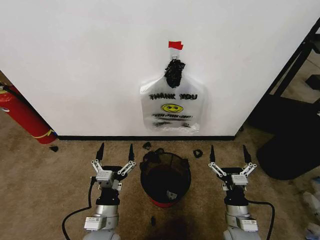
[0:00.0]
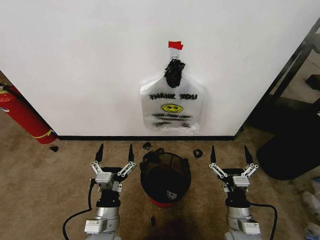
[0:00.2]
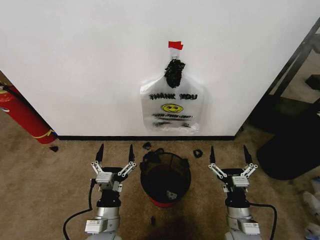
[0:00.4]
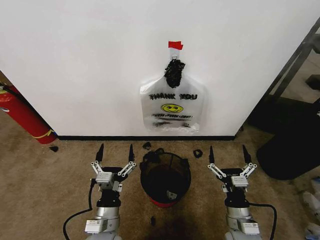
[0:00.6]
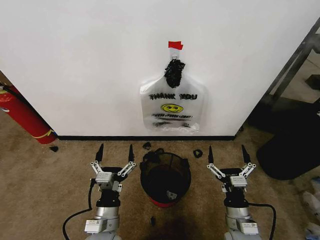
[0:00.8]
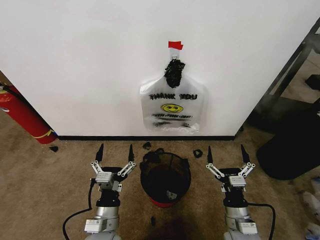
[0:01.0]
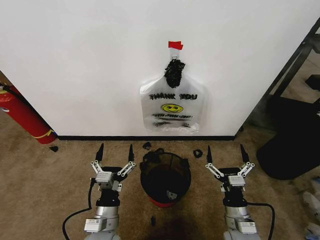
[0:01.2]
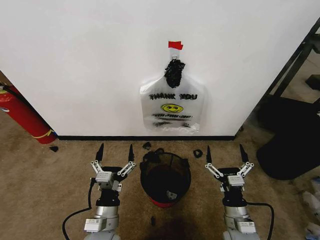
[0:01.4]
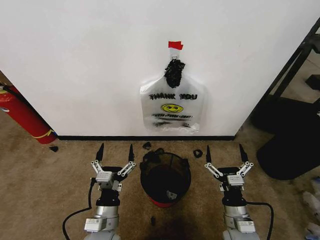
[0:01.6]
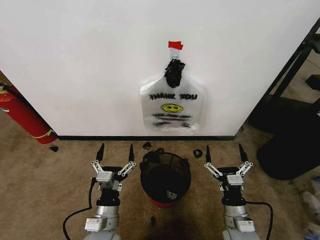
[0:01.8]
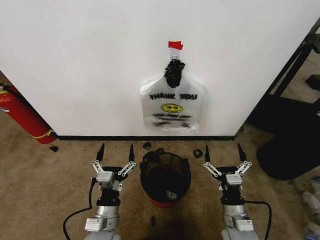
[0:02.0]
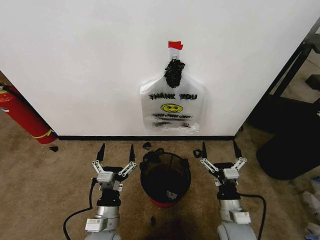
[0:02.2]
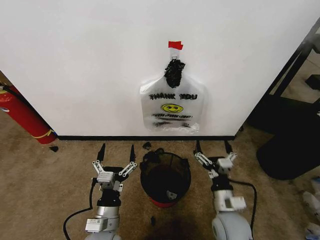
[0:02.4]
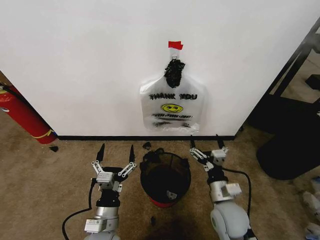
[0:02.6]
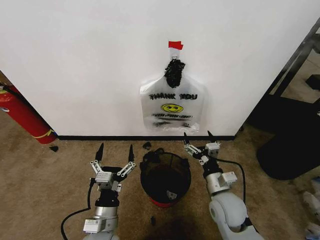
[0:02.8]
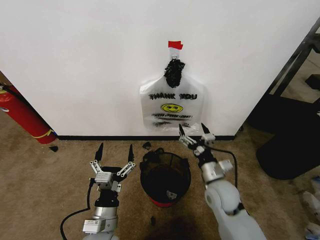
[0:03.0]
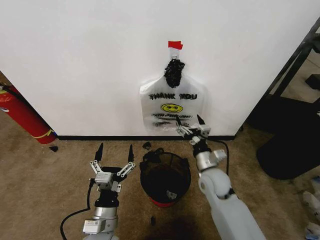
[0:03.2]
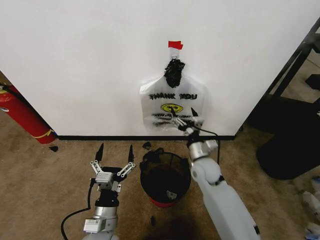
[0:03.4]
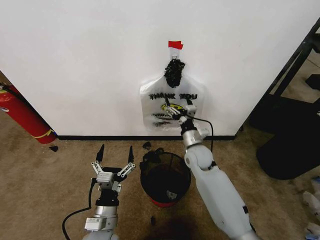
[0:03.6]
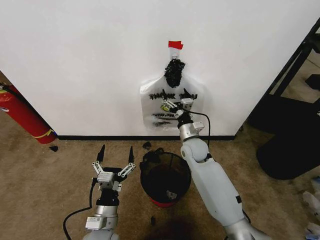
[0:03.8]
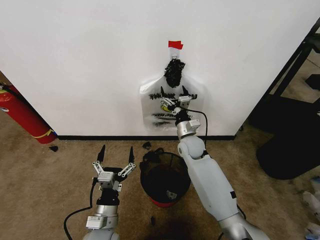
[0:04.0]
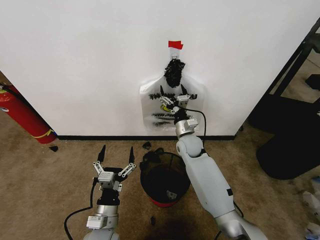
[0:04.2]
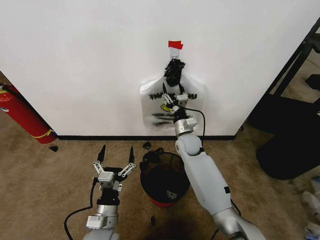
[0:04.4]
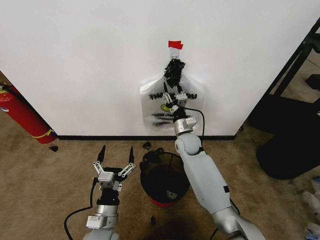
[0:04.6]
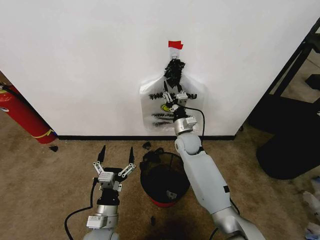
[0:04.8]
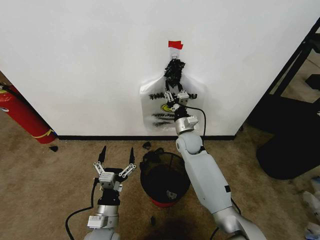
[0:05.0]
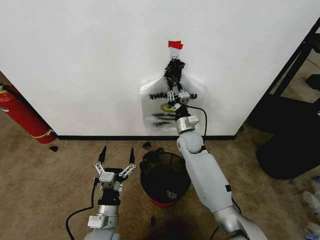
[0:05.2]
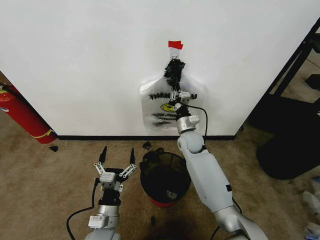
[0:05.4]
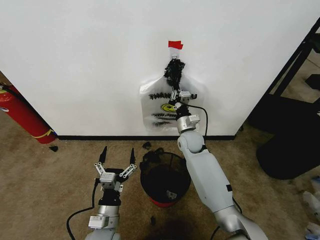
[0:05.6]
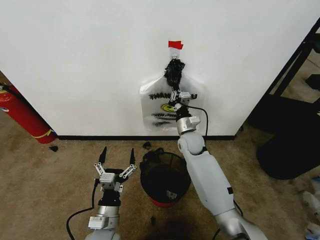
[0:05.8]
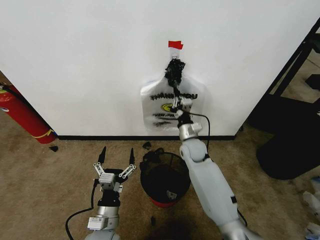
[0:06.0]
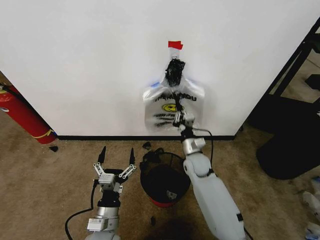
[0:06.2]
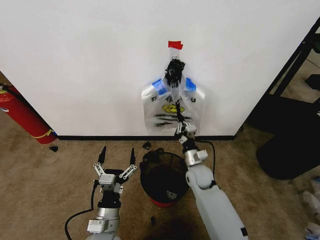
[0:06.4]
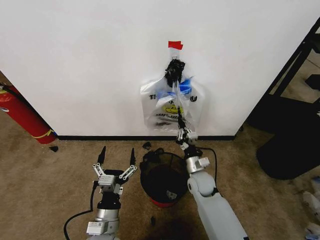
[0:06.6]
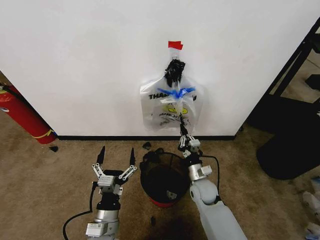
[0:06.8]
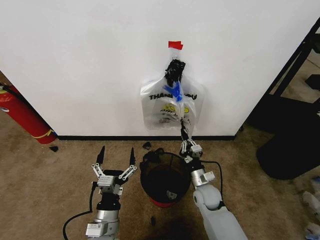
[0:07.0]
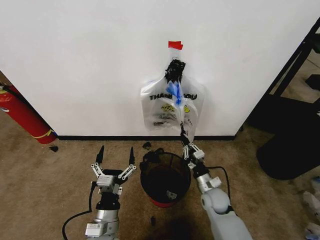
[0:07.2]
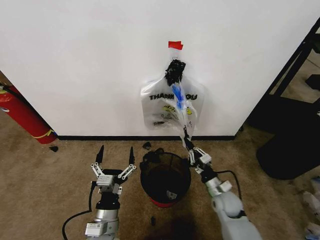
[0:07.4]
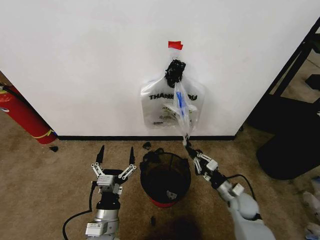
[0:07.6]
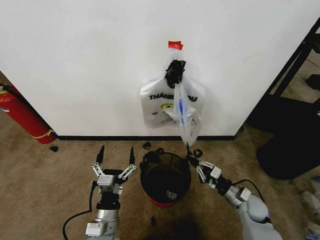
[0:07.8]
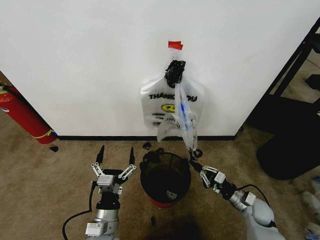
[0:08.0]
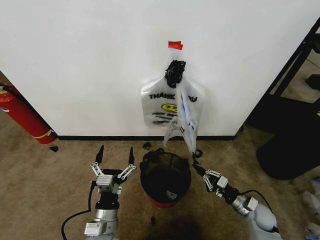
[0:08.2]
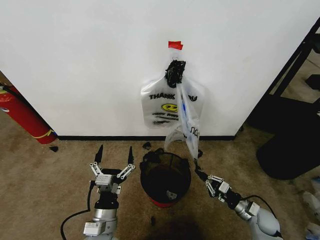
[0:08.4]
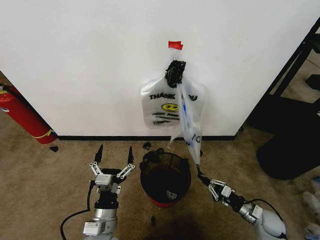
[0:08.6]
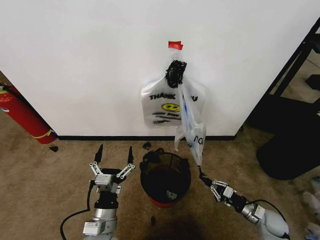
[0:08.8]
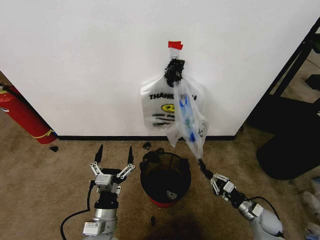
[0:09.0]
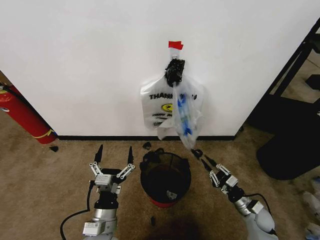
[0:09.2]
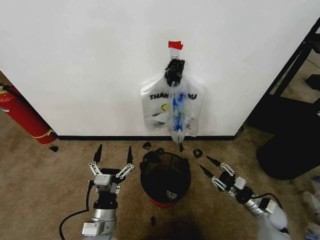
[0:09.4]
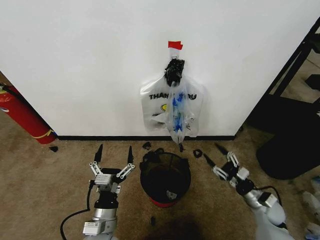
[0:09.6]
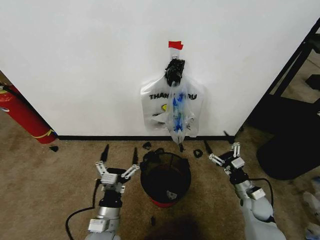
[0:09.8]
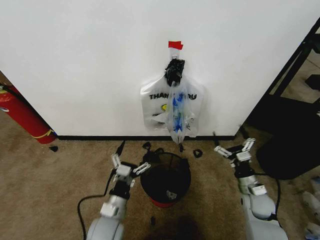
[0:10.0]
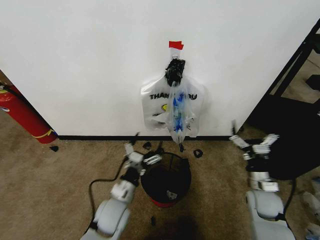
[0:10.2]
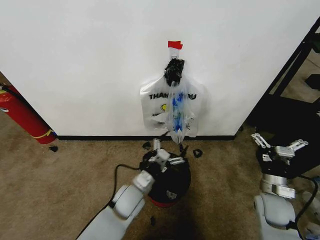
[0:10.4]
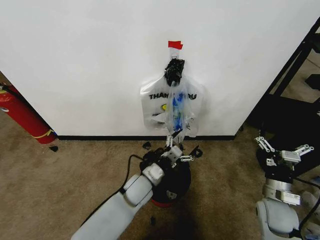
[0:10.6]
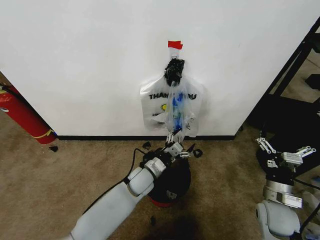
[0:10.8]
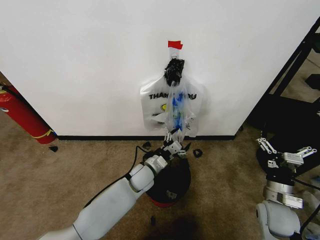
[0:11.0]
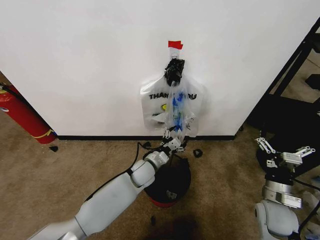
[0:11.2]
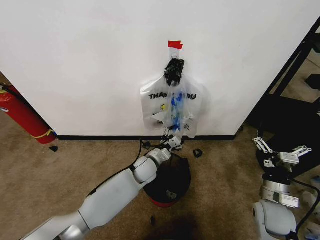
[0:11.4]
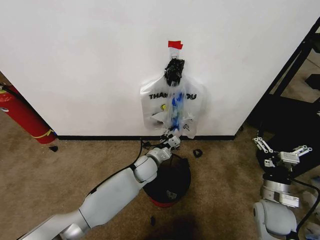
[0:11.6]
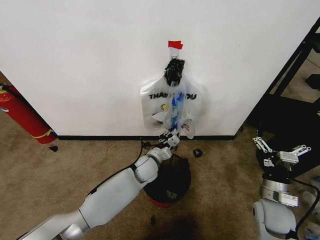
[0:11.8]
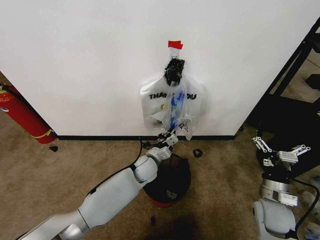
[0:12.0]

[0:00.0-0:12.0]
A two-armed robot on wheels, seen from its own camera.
Task of the whole recording: Pick up the garbage bag from the wall and place it over the trash bin.
0:01.6 to 0:03.0: The right gripper shifts roughly 10 cm forward and upward.
0:03.0 to 0:04.4: The right gripper shifts some 25 cm forward.
0:04.4 to 0:06.0: The right gripper closes its fingers.
0:06.0 to 0:07.6: The right gripper shifts some 25 cm to the right, backward and downward.
0:07.6 to 0:09.0: The right gripper heads to the right and downward, covering some 10 cm.
0:09.0 to 0:10.4: The right gripper goes about 15 cm upward, and opens up. Meanwhile the left gripper shifts some 15 cm forward and to the right.
0:10.4 to 0:12.0: The left gripper goes about 10 cm forward, and closes up.

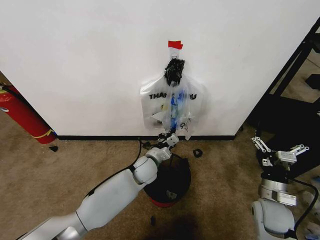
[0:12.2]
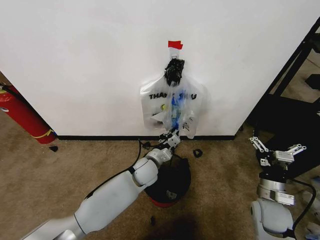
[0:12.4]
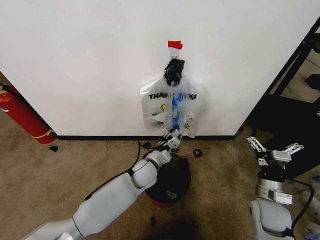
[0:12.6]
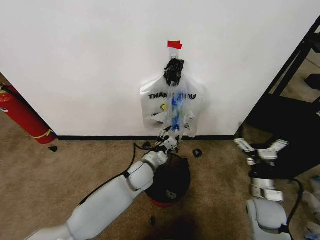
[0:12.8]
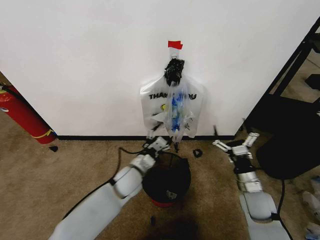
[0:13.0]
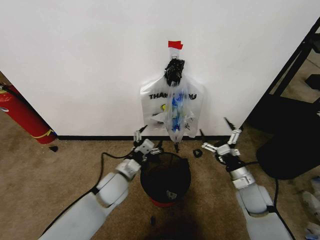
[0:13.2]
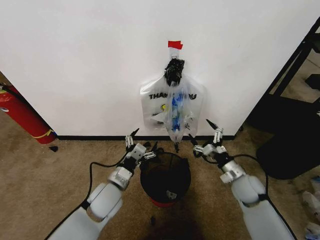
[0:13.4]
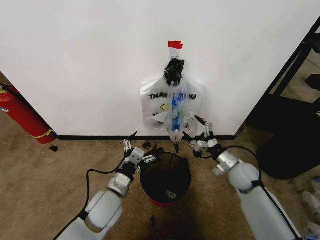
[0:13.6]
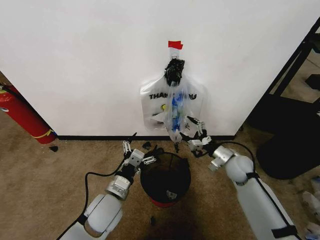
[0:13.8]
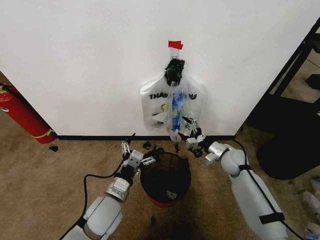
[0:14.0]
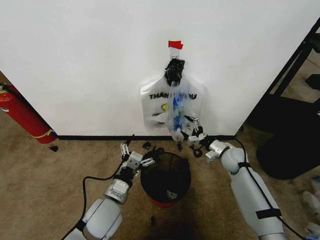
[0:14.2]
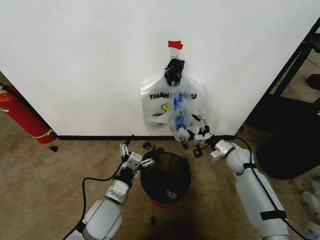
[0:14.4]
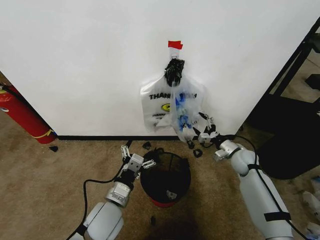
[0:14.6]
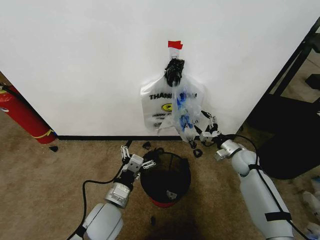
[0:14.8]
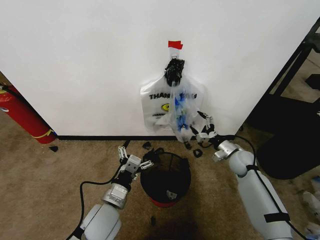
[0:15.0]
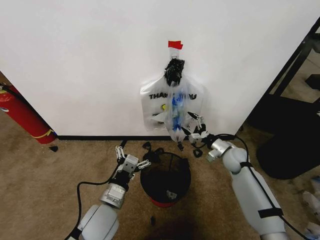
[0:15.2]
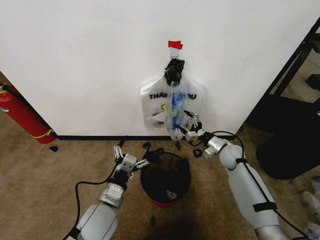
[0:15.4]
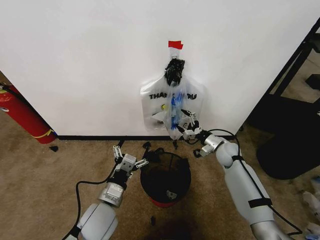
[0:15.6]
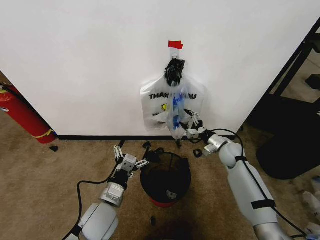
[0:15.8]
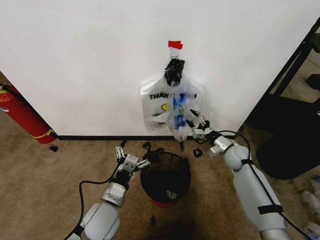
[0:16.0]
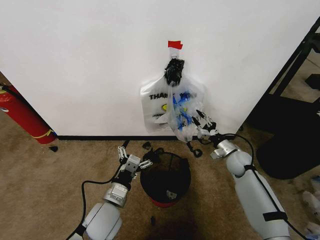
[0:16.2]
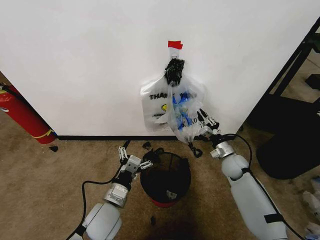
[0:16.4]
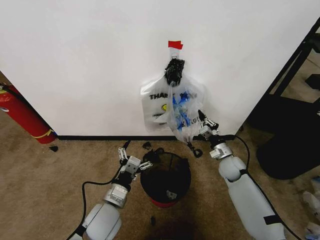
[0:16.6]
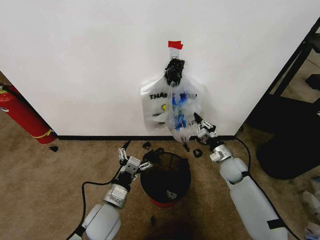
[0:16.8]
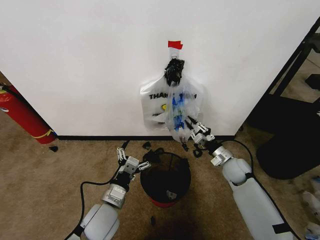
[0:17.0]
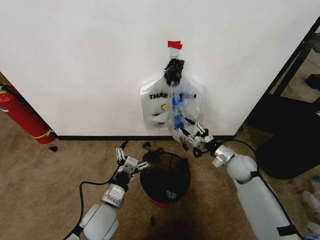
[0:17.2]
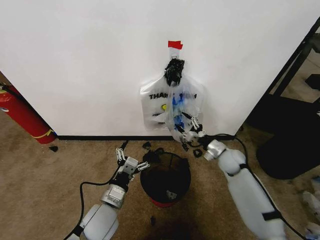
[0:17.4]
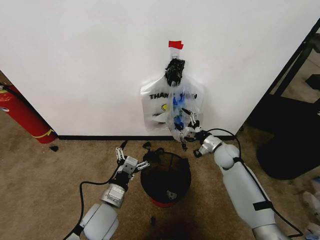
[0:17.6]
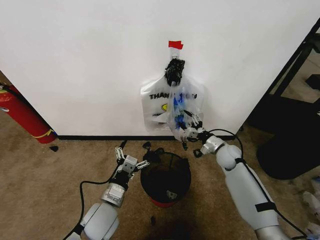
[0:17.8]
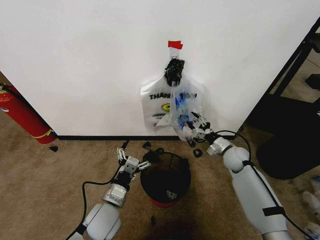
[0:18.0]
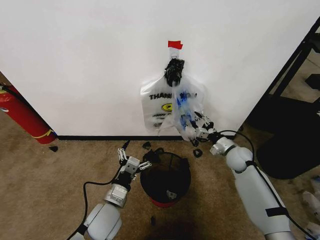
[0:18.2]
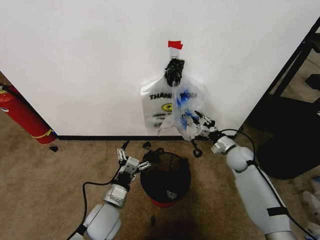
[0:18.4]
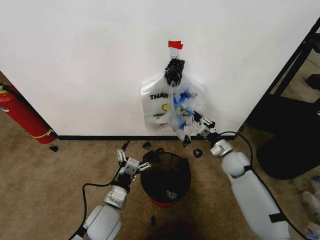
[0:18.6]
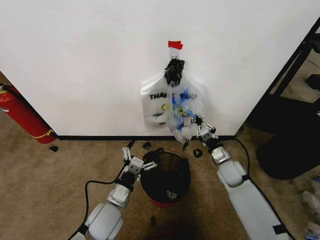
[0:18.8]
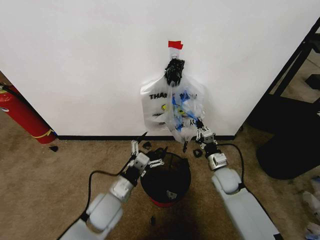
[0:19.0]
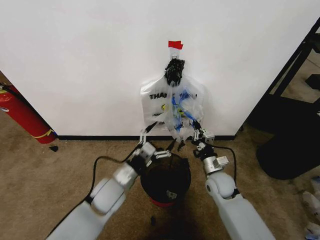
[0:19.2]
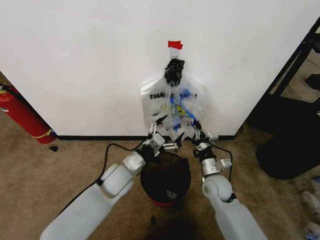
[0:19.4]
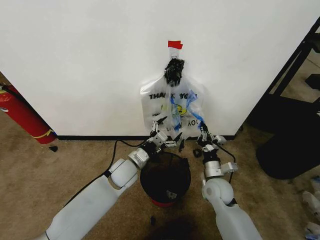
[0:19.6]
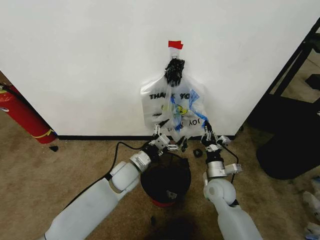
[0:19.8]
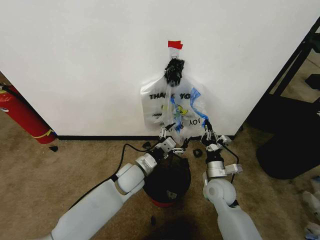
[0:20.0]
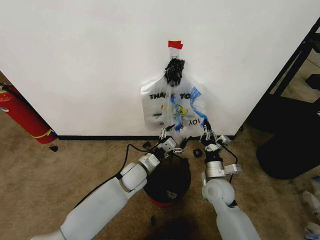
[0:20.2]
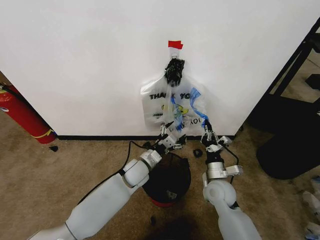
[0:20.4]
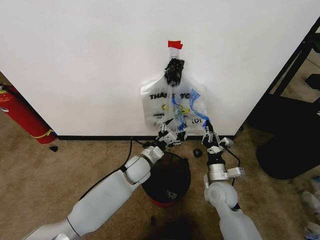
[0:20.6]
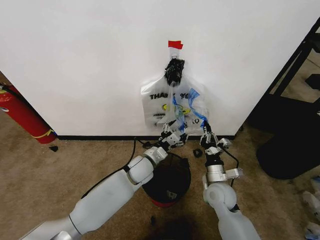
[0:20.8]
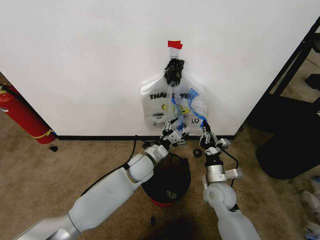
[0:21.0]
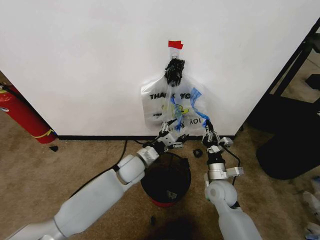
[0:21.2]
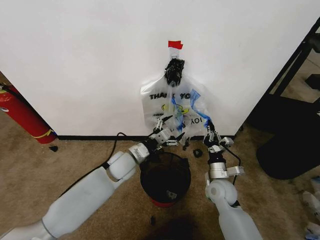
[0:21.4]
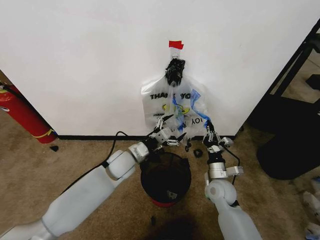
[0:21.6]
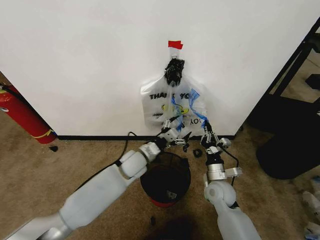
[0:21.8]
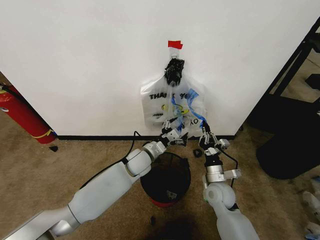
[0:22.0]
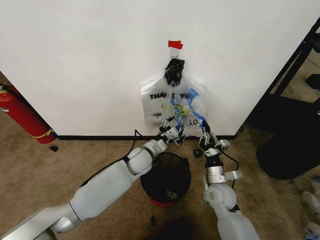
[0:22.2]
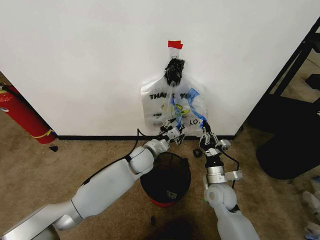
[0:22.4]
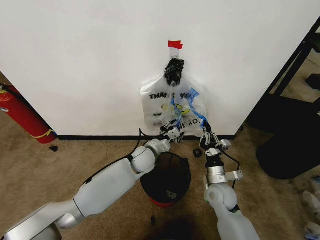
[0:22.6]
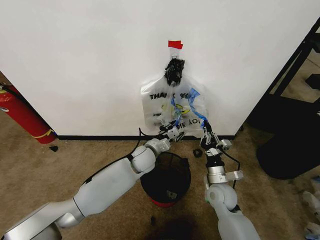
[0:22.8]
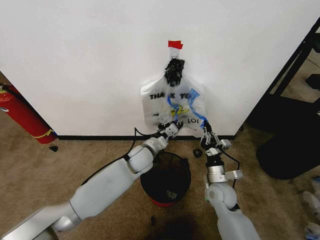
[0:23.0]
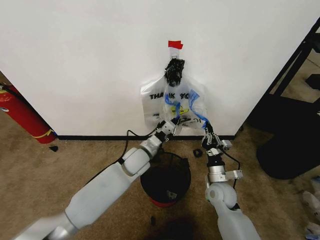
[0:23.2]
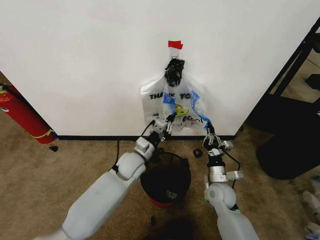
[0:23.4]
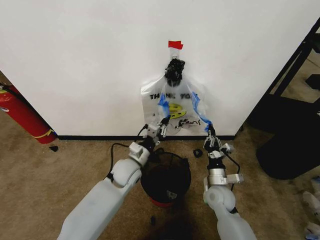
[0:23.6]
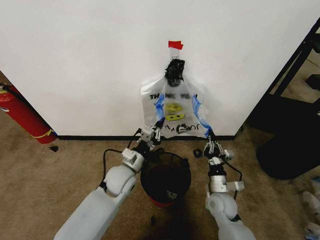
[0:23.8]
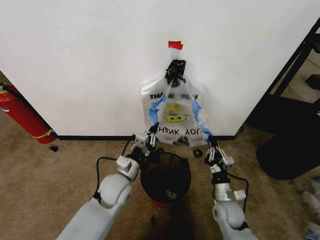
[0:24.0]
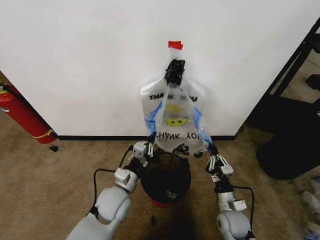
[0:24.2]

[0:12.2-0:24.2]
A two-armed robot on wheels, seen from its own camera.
Task of the whole recording: Pick up the garbage bag from the wall and place it over the trash bin.
0:12.2 to 0:13.8: The left gripper moves backward and to the left, some 20 cm, and opens up; the right gripper goes about 15 cm forward.
0:13.8 to 0:15.2: The right gripper ends up about 5 cm from where it was.
0:15.2 to 0:16.6: The right gripper closes.
0:16.6 to 0:18.2: The right gripper opens its fingers.
0:18.2 to 0:19.8: The right gripper shifts about 15 cm backward and to the left, and closes up. The left gripper goes about 15 cm forward.
0:21.2 to 0:22.6: The left gripper shifts by about 5 cm, and closes up.
0:22.6 to 0:24.2: The left gripper shifts about 15 cm backward and to the left, and closes its fingers. Meanwhile the right gripper goes some 10 cm backward and downward.
